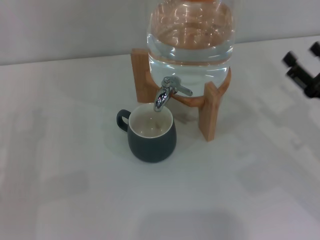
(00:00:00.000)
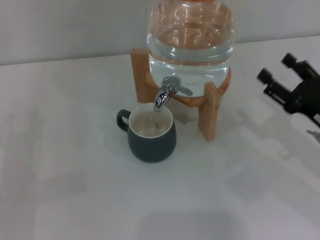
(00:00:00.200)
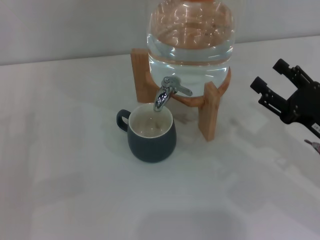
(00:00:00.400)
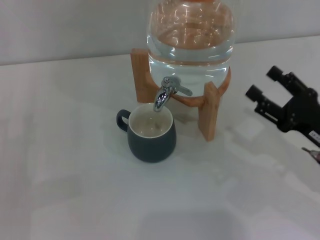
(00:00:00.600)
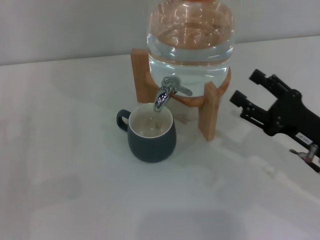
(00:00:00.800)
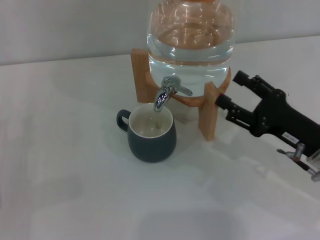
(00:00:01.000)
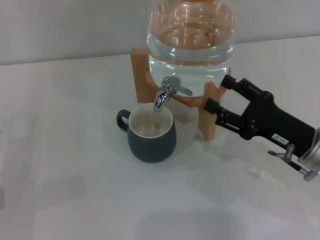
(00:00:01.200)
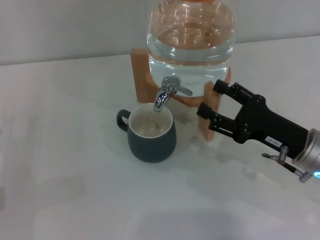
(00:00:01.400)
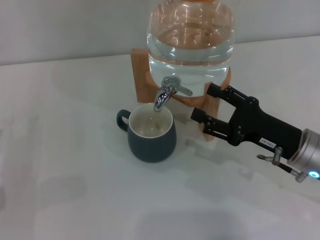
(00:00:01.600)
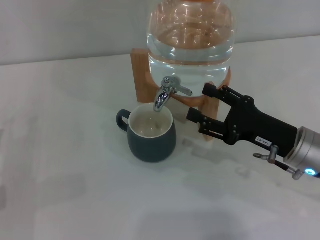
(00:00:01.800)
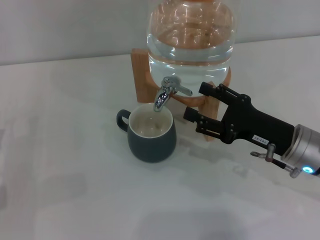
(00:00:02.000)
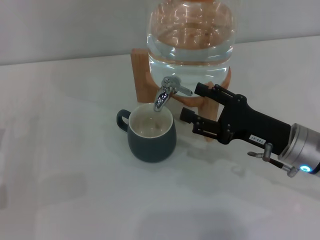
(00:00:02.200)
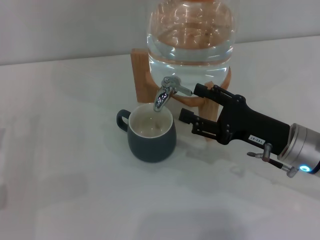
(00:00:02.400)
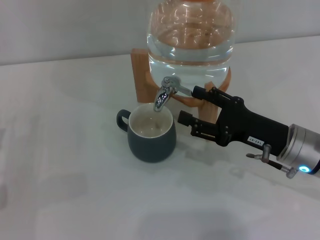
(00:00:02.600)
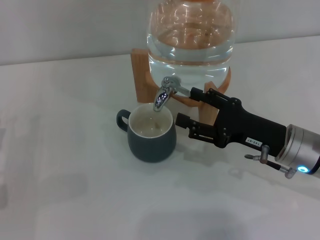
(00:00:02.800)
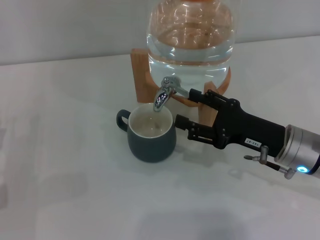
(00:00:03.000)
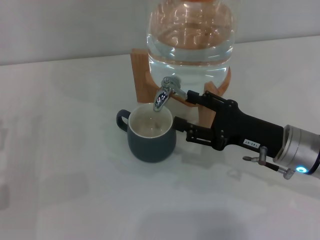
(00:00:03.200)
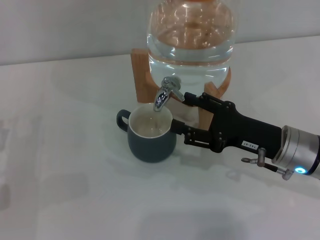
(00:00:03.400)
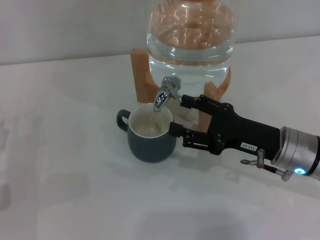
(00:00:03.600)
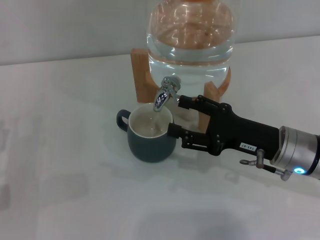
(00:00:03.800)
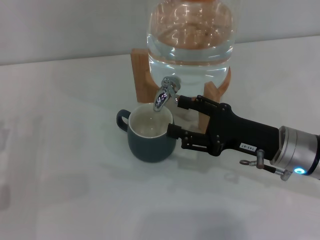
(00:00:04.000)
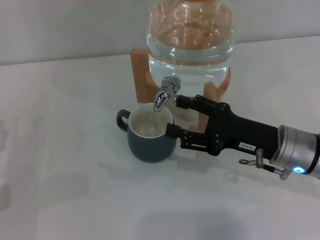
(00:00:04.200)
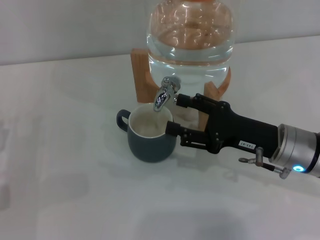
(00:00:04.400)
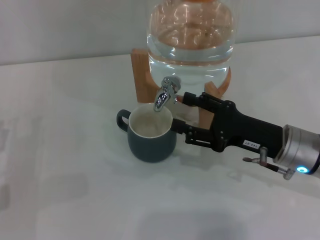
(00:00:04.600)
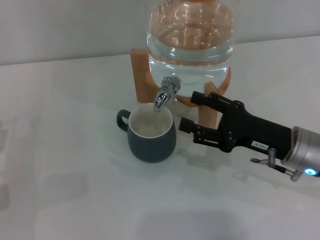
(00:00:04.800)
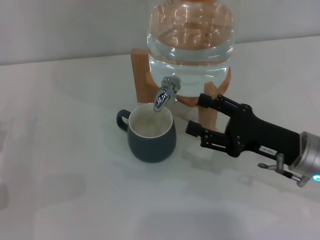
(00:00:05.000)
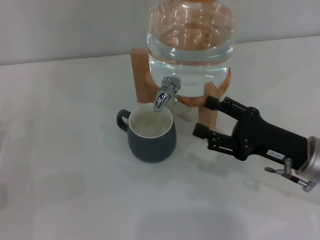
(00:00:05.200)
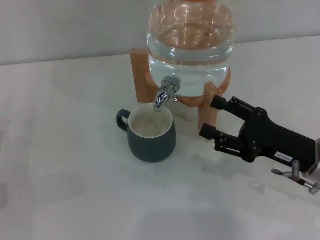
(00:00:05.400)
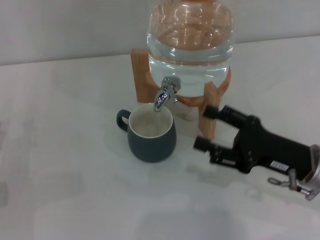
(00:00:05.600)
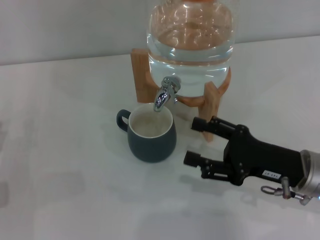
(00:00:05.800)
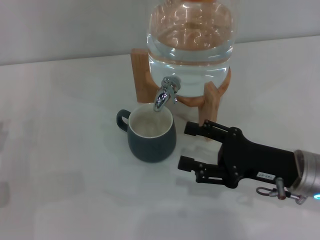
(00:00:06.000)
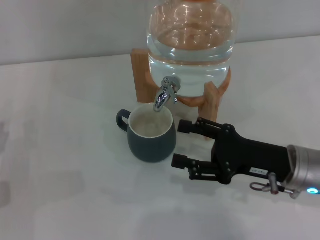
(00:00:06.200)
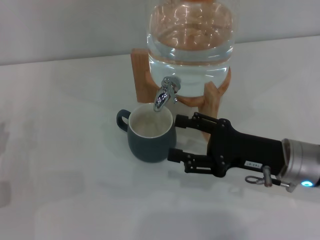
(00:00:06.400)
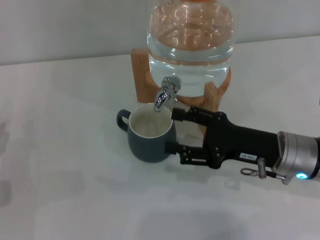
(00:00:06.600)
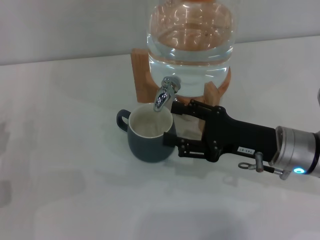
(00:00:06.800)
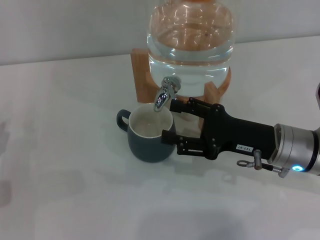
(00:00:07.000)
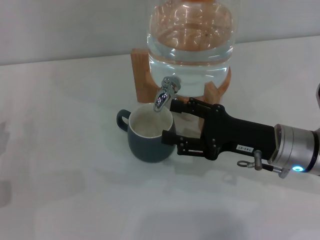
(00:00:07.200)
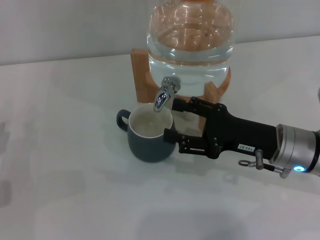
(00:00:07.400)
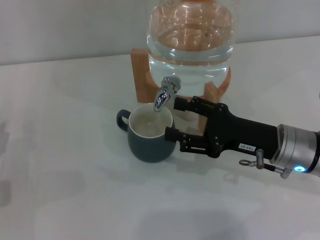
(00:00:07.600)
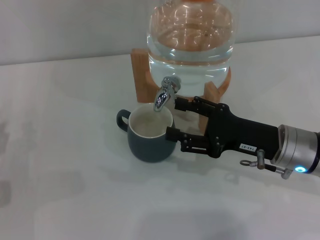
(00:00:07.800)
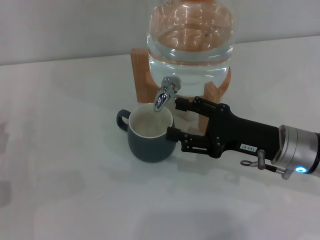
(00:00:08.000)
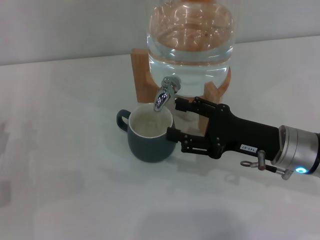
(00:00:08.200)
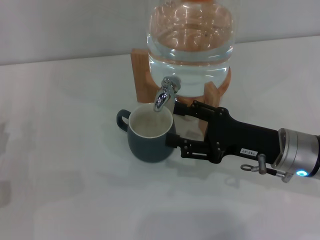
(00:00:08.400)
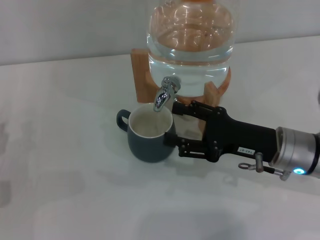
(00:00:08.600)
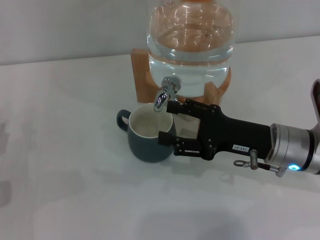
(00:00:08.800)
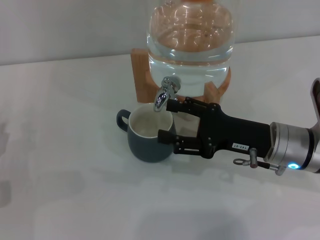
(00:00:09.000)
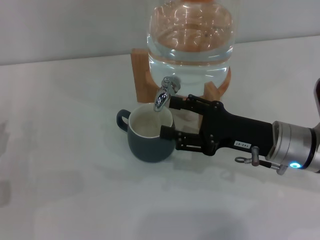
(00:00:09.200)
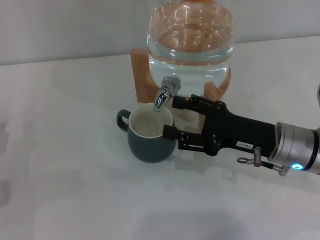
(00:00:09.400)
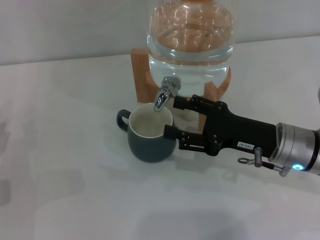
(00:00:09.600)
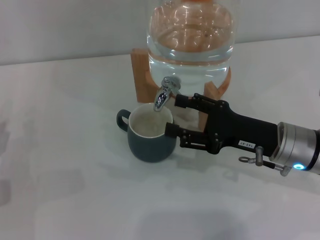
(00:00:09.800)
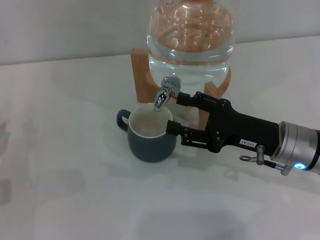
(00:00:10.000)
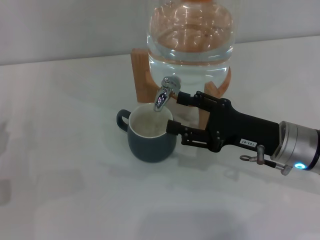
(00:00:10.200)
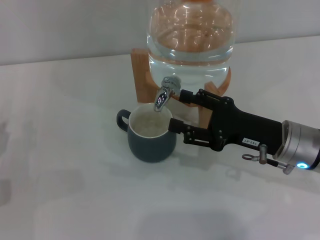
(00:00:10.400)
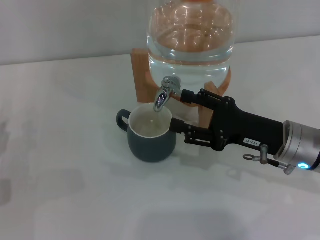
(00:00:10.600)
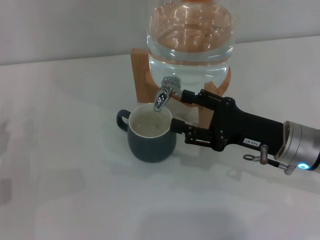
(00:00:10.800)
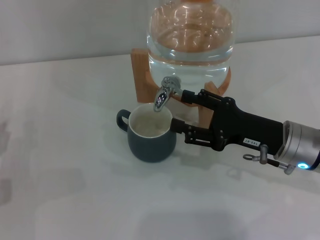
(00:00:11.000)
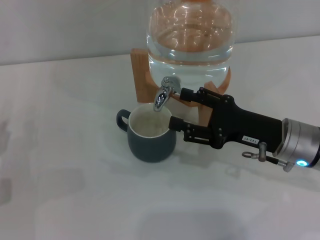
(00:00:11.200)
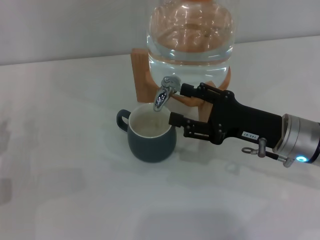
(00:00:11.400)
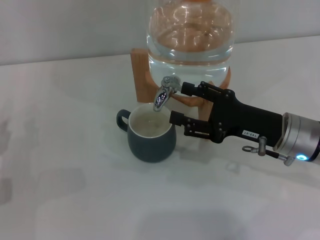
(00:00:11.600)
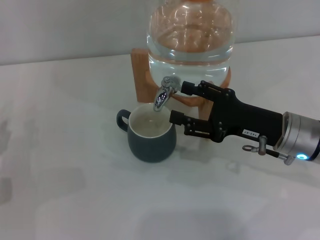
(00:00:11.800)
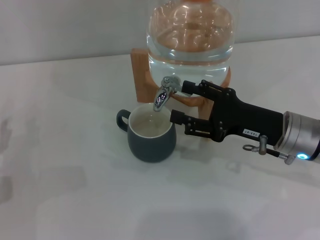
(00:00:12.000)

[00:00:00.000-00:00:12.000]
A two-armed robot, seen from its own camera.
Task of the whole recording: the left gripper pick up the black cup and place it horizontally under the faucet, the right gripper turn on the faucet to fill the cup, and then turn off the faucet.
Step, 00:00:00.000 to 00:00:08.200: Open the dispenser valve and fill the cup with water with the right gripper.
00:00:00.000 to 00:00:01.600: The right gripper is displaced to the left by roughly 10 cm.
00:00:01.600 to 00:00:07.600: The grippers make only small movements.
00:00:07.600 to 00:00:10.400: Both grippers stay put.
00:00:10.400 to 00:00:12.000: Neither gripper changes place.

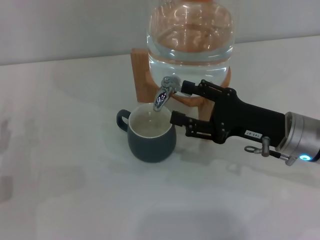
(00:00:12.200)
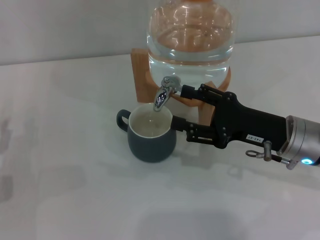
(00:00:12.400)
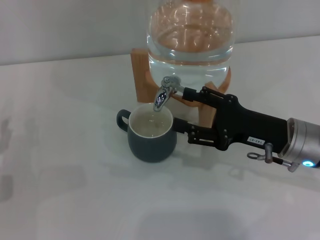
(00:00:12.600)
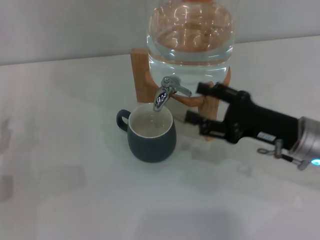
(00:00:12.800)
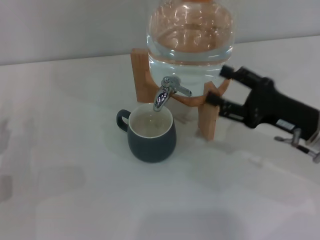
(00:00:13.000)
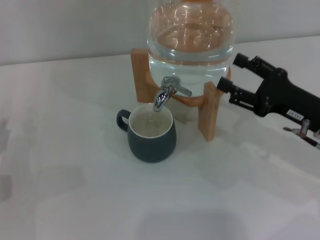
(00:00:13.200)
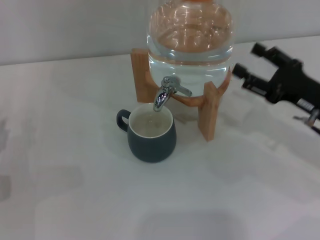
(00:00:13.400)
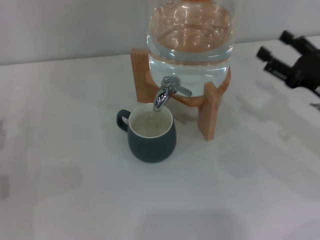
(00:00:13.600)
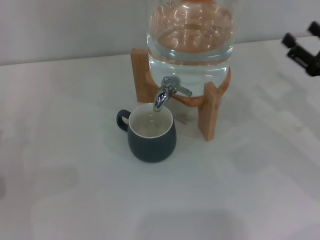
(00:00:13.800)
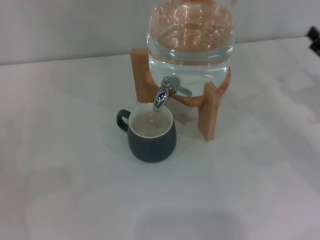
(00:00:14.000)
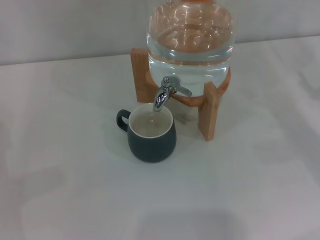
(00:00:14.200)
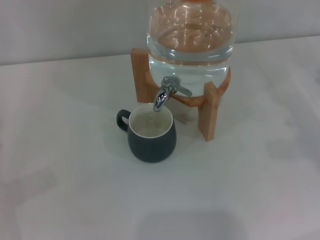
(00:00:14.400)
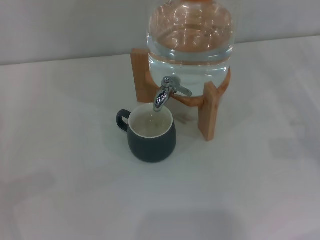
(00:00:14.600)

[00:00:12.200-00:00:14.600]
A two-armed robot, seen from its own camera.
Task of the whole recording: the left gripper pick up the black cup and place it horizontally under the faucet, the right gripper turn on the faucet to fill the cup, and then turn off the faucet.
00:00:12.200 to 00:00:13.400: The right gripper travels to the right by some 5 cm.
00:00:13.400 to 00:00:14.600: The right gripper moves to the right, roughly 10 cm.
